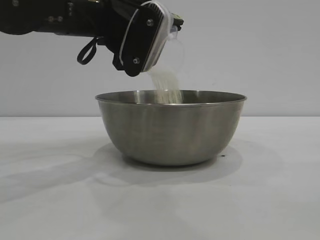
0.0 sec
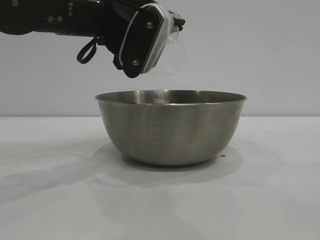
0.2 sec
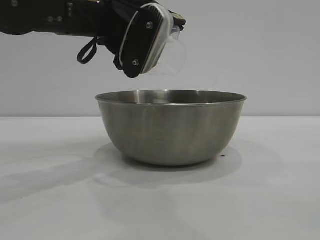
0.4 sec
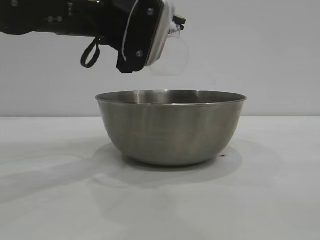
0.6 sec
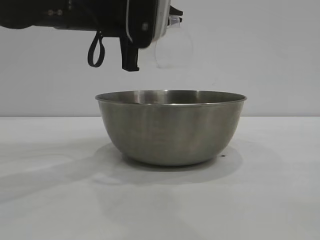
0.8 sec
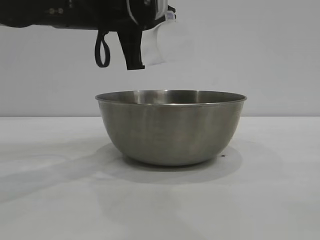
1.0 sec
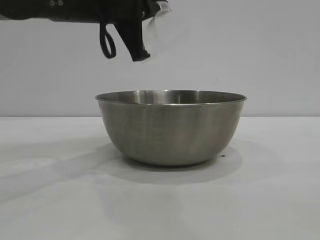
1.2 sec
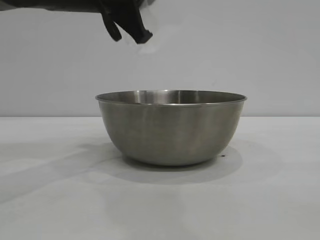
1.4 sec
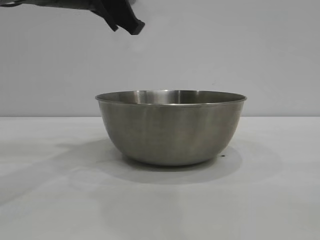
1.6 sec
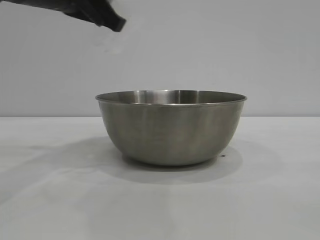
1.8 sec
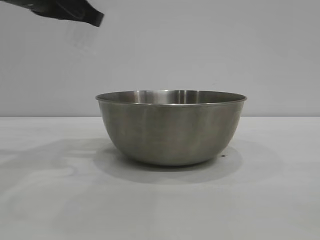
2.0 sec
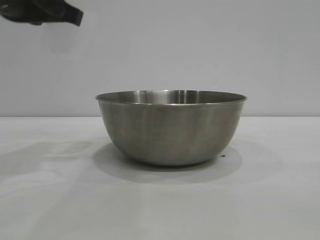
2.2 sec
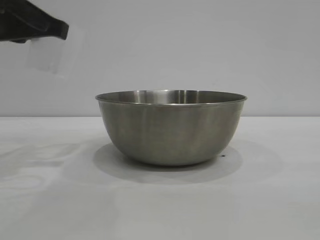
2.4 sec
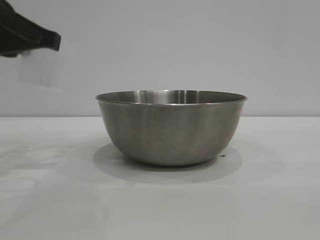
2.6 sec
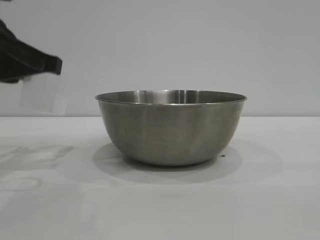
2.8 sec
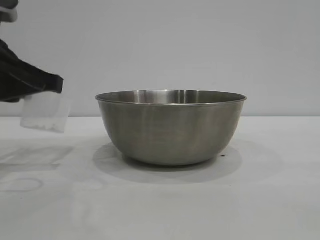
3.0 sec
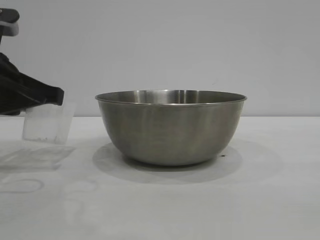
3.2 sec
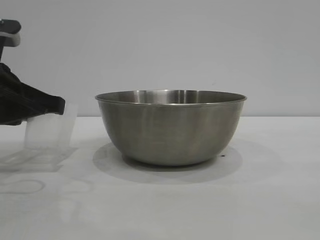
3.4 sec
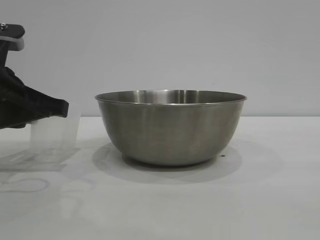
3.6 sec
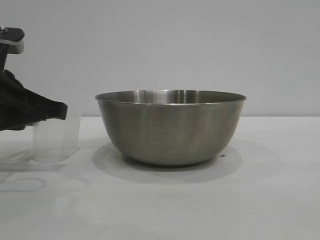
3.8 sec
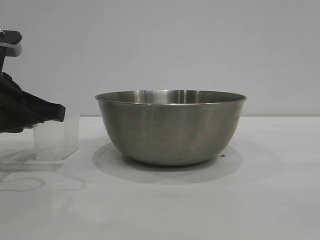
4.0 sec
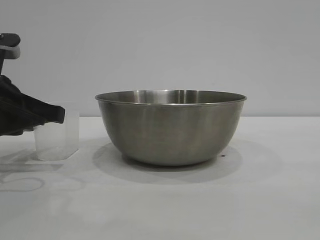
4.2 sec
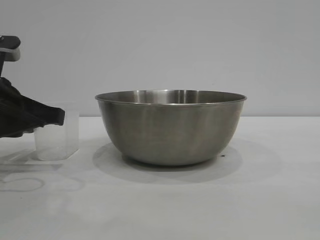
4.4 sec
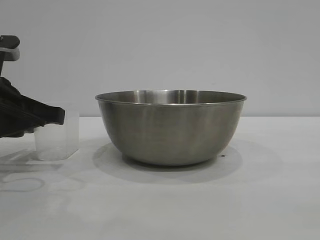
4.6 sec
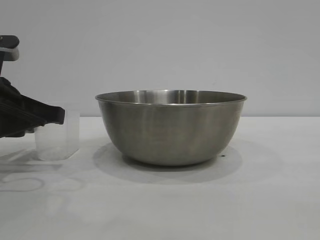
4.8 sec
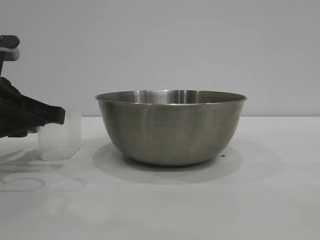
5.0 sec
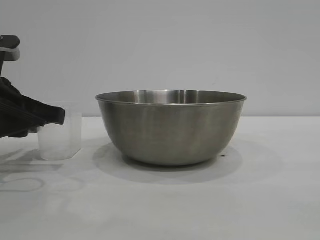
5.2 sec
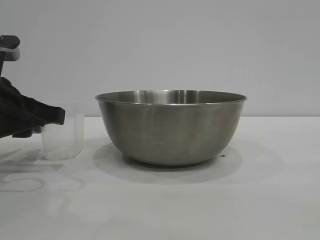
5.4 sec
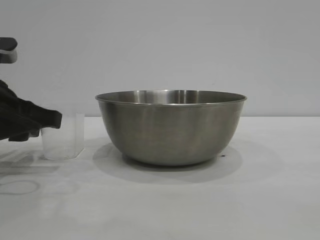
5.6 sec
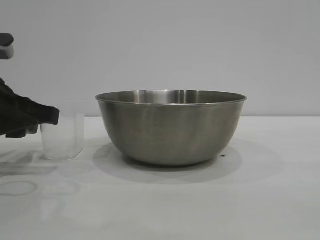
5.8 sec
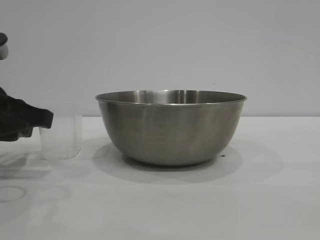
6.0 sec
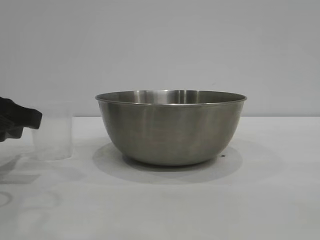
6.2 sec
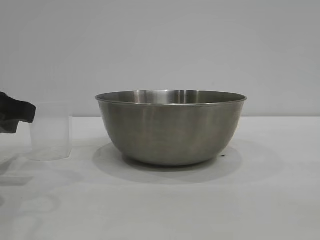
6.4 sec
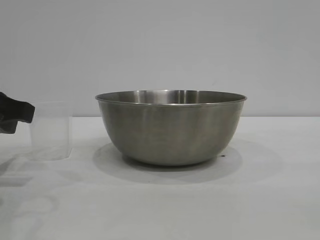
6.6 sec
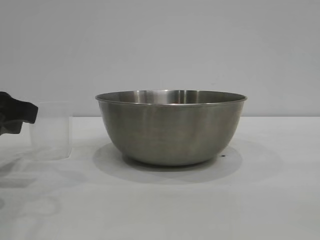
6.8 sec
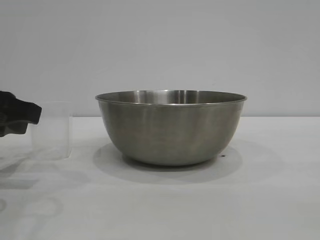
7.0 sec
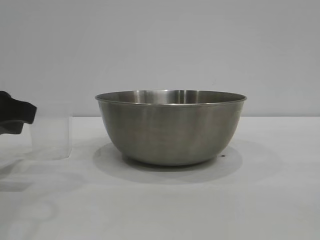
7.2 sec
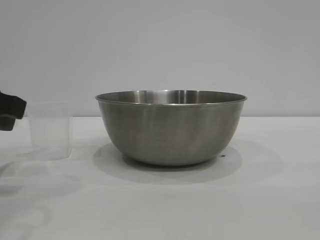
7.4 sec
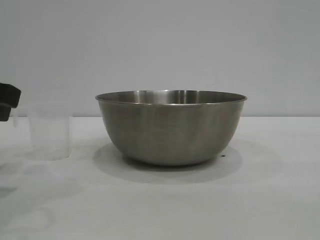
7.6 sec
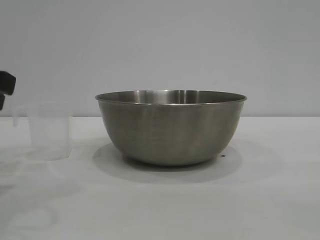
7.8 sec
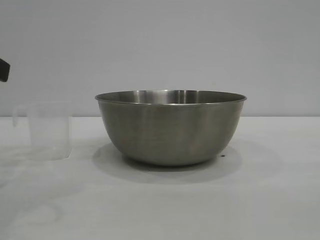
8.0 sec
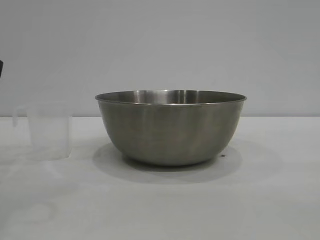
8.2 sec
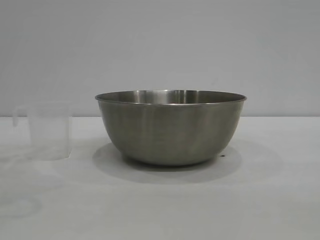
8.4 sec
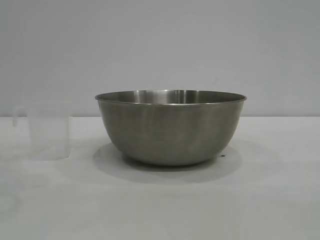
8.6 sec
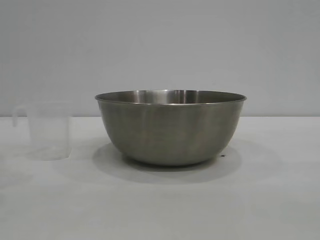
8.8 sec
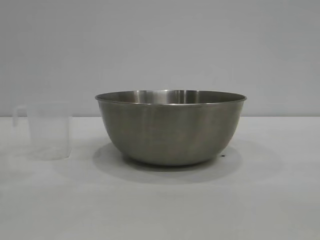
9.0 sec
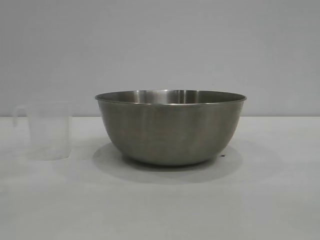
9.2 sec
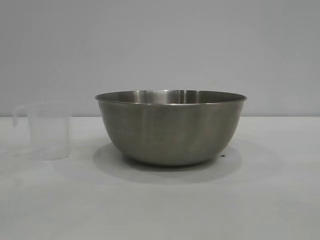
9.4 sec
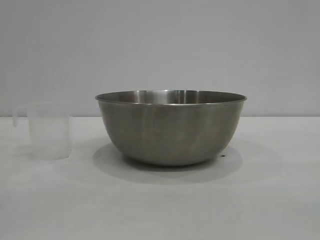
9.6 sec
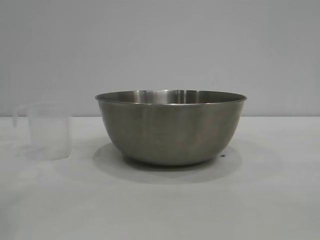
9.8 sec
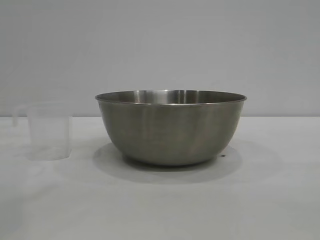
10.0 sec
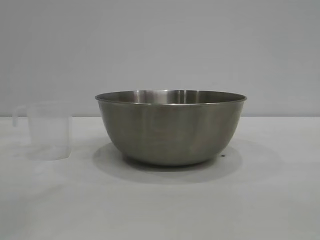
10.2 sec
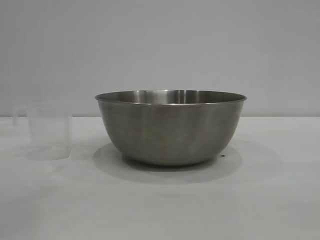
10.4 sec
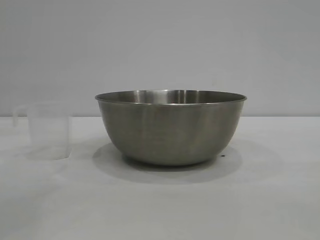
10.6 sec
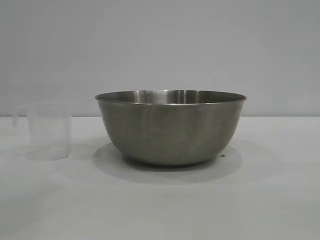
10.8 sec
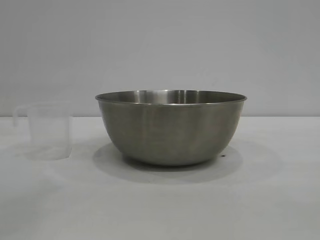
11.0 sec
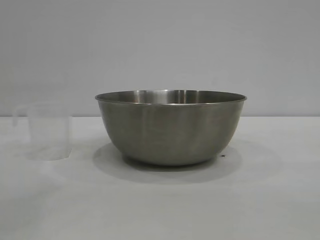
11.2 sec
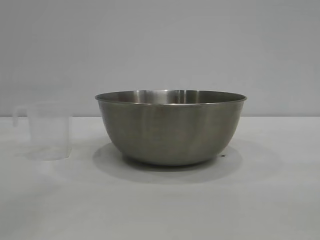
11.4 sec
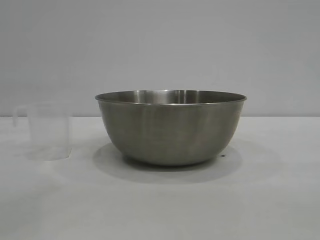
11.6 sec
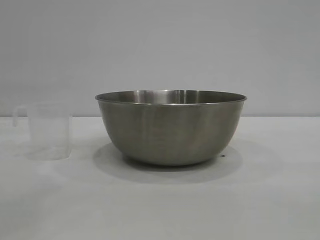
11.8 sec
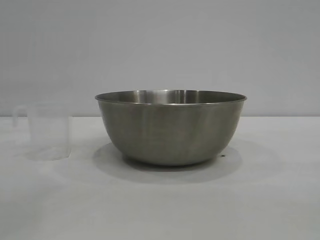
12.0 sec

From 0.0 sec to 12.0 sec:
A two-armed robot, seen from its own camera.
Task of the whole recording: the right gripper grasp the rice container and place it in the center of the table, the left gripper grasp the rice scoop and pour the rice into the rice container.
Step, from 1.2 sec to 7.6 sec: Place the cup on the table with the left gripper.

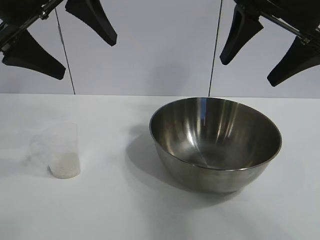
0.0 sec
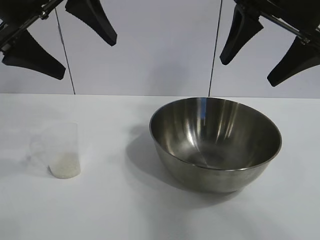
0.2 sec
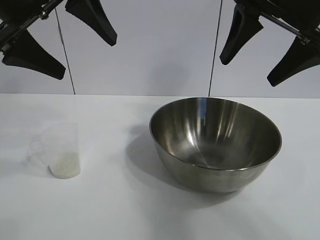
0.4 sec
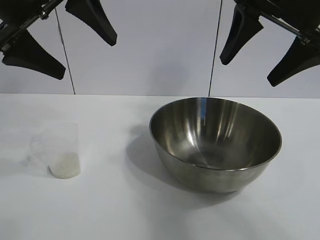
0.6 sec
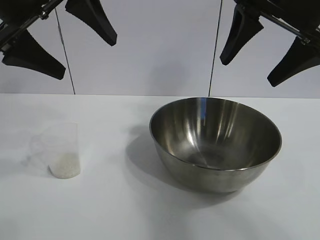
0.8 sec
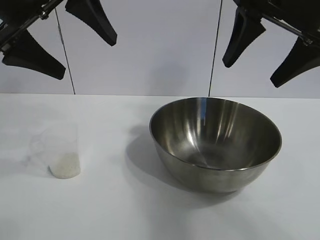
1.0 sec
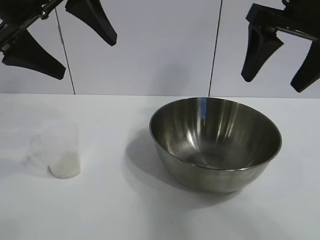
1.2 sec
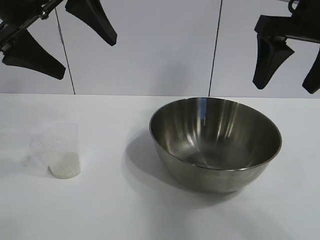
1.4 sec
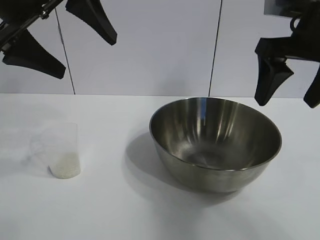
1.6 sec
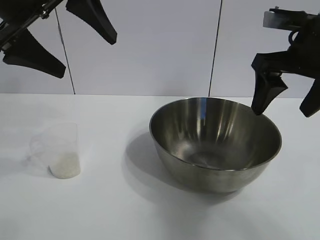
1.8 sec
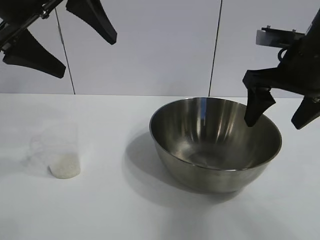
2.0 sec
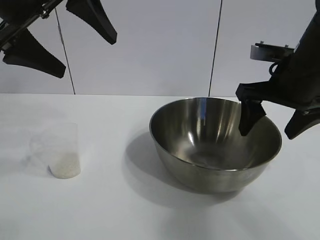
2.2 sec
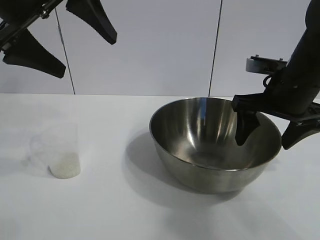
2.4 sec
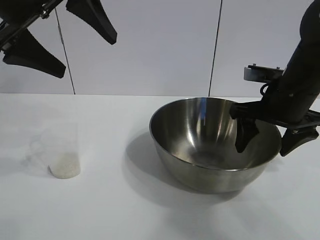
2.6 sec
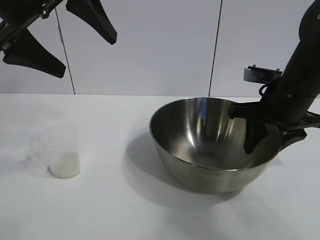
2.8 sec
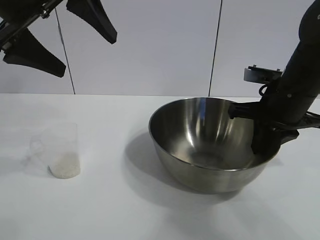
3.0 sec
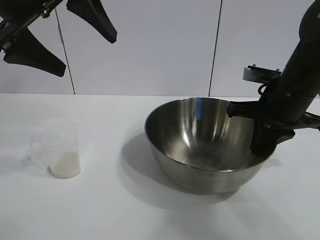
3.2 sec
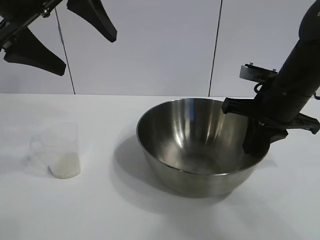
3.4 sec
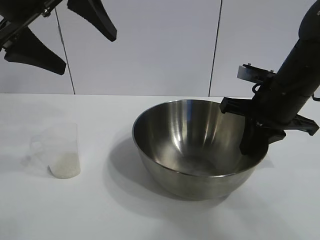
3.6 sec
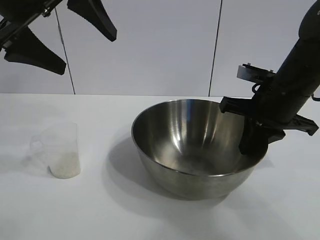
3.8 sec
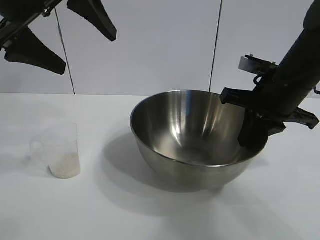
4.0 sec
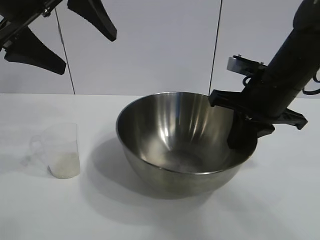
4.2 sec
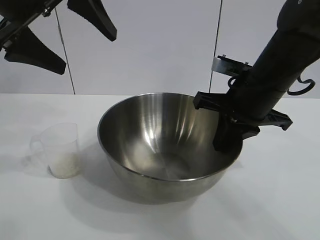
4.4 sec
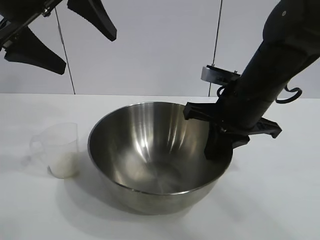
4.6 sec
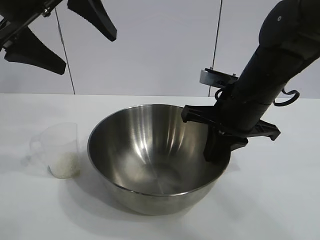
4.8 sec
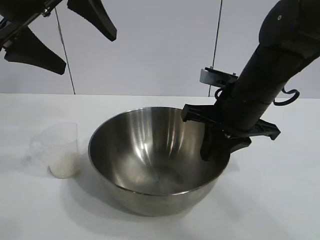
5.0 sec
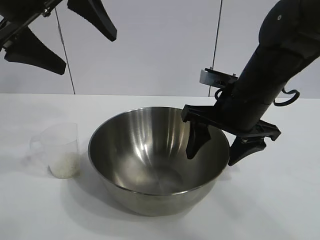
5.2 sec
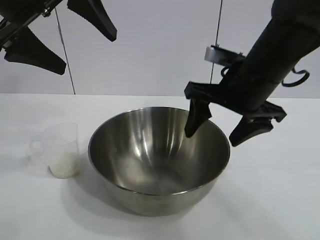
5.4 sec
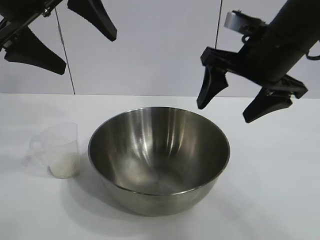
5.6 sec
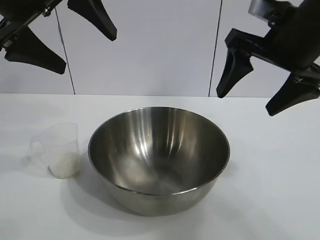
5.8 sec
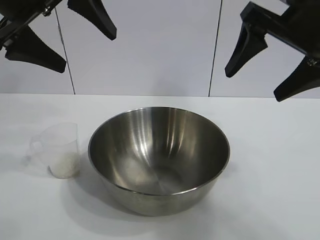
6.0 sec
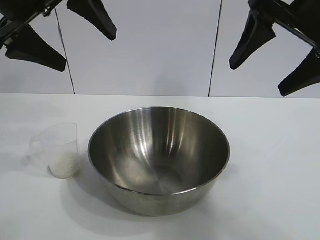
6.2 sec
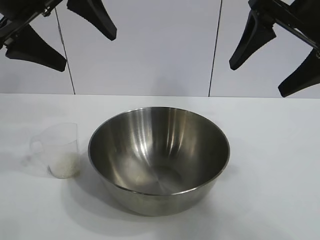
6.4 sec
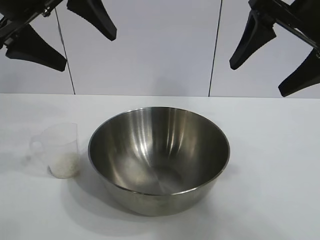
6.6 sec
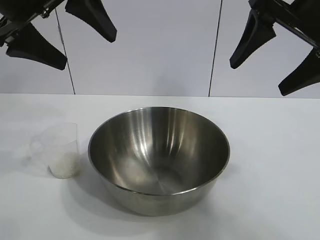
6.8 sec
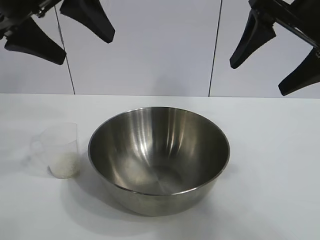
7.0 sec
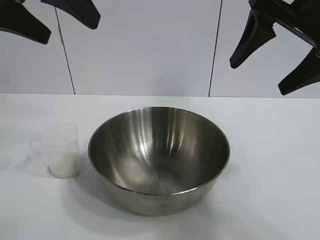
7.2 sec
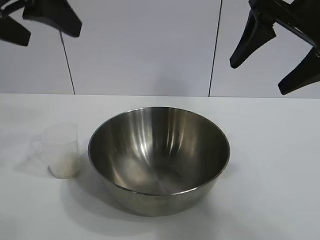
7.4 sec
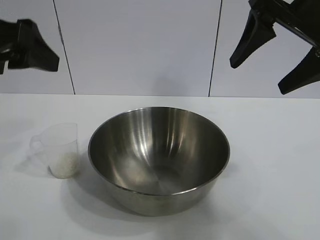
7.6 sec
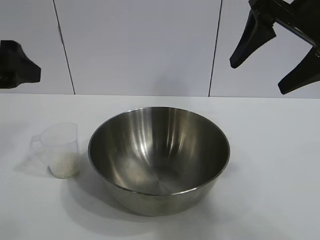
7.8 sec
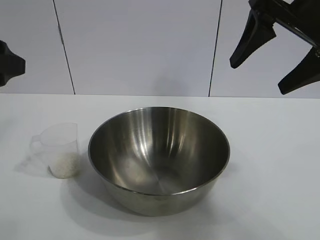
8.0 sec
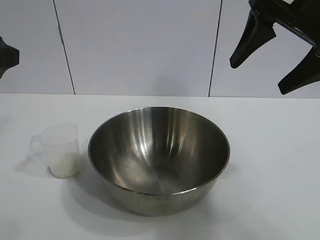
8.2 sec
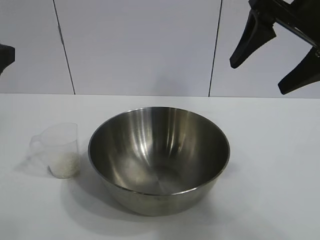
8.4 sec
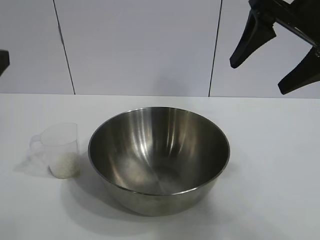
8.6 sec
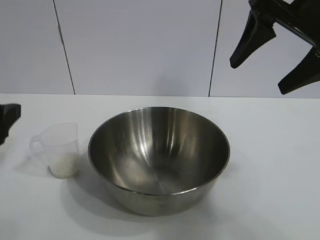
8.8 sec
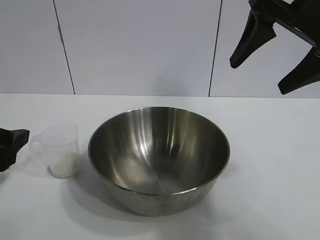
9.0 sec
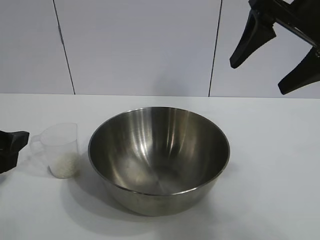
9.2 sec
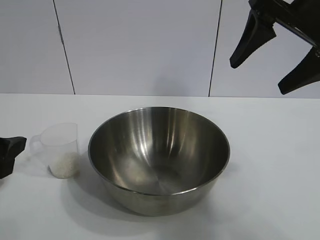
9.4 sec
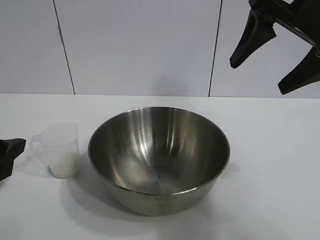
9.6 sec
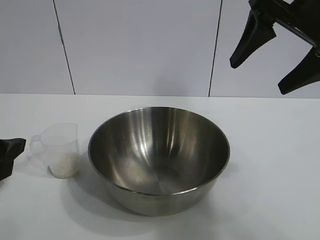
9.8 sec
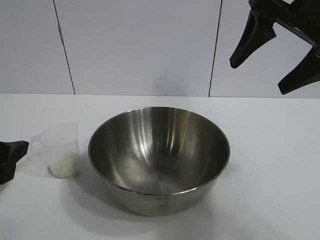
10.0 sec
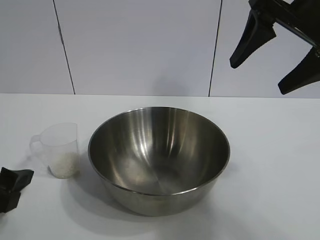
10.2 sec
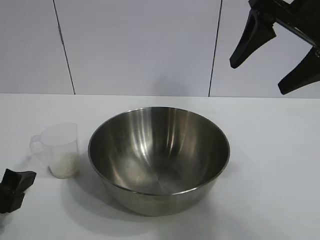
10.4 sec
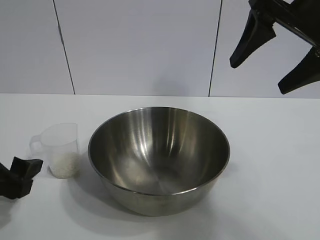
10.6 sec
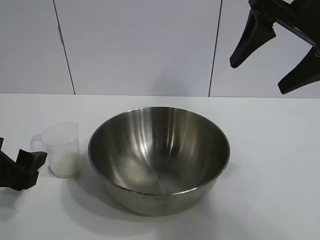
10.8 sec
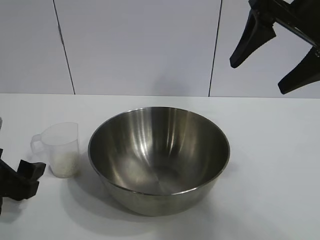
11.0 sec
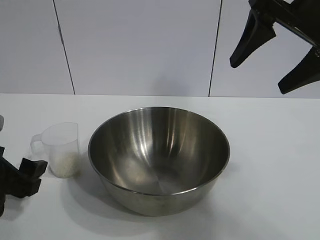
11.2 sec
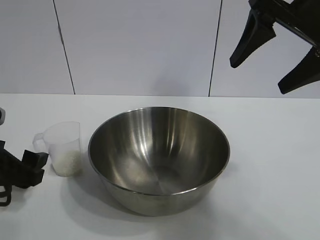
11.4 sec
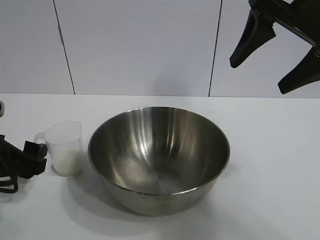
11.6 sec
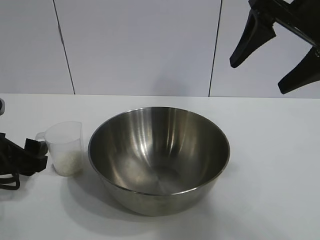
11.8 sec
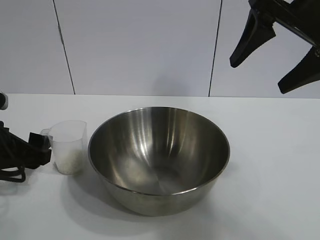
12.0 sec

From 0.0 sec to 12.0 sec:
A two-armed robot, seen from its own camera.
Task of the whole recording: the right gripper grasp the rice container and place it in the center of the table, the left gripper grasp the rice scoop and pour the rice into the rice container.
Step, from 1.0 sec to 5.4 sec: Move the bowl in the center of view with right gripper.
